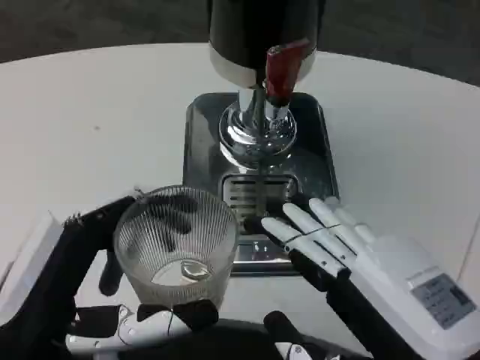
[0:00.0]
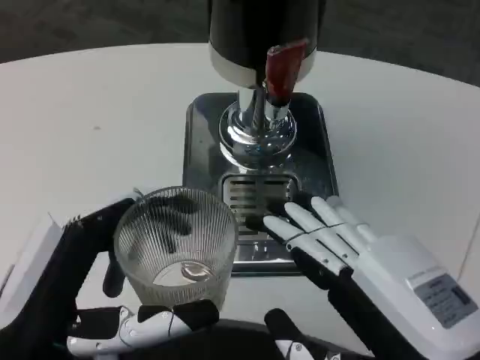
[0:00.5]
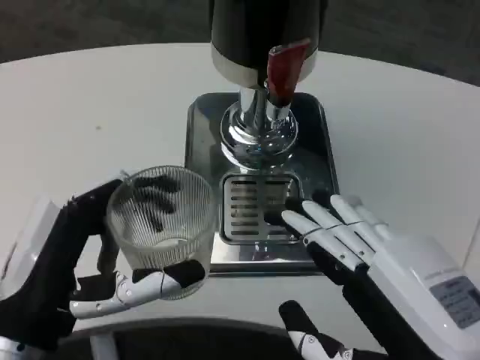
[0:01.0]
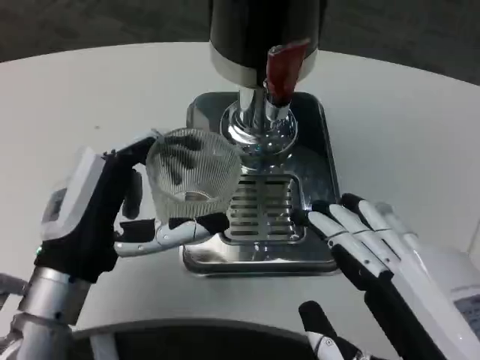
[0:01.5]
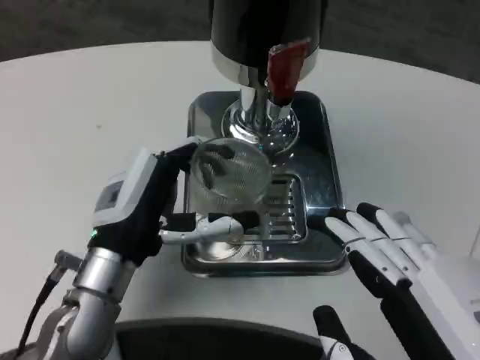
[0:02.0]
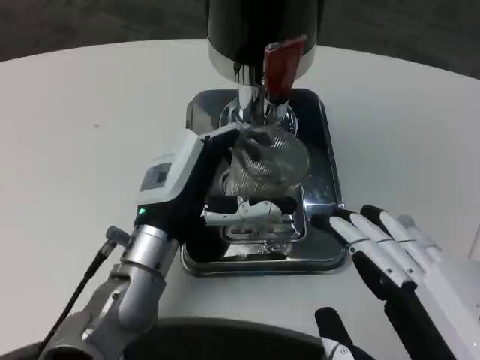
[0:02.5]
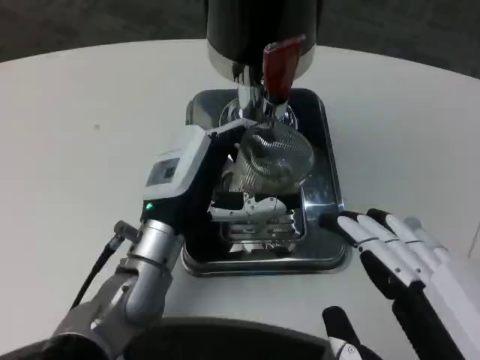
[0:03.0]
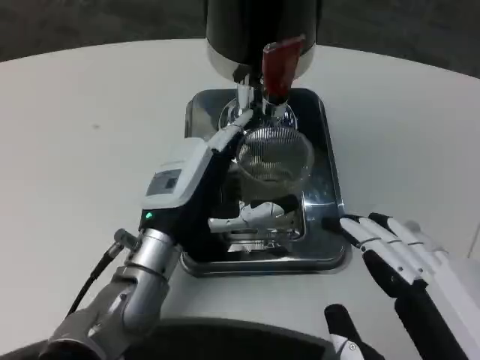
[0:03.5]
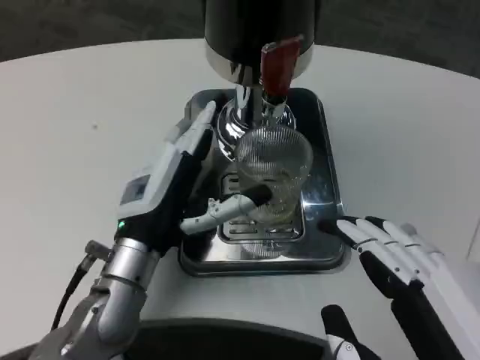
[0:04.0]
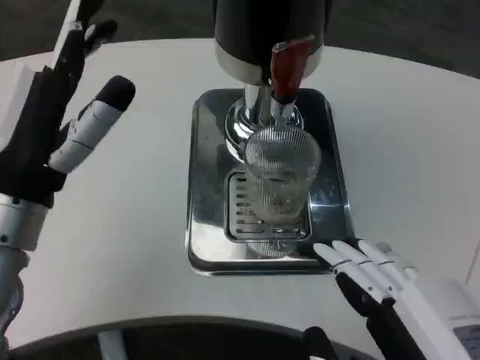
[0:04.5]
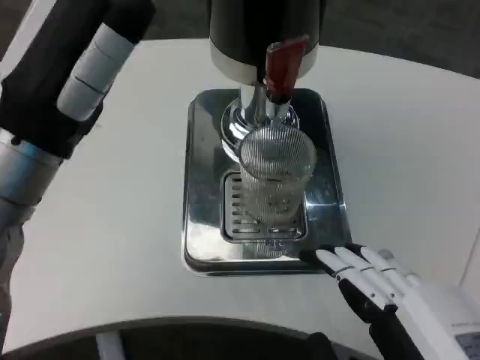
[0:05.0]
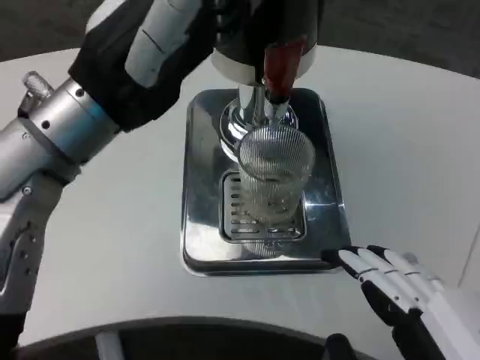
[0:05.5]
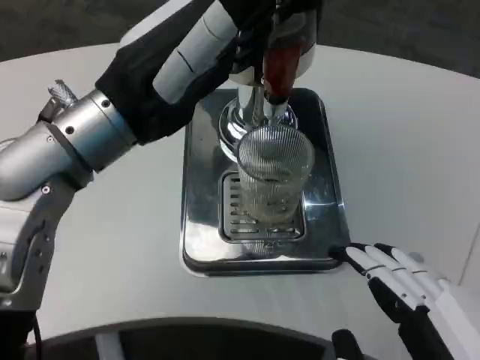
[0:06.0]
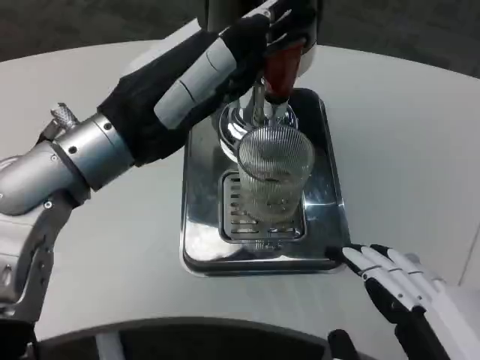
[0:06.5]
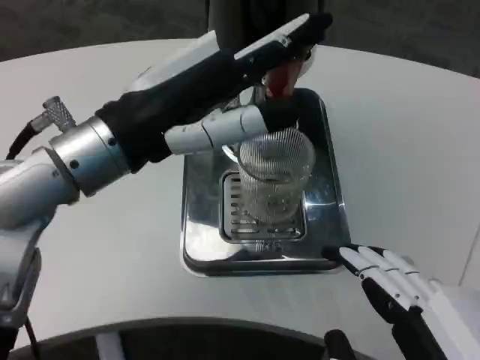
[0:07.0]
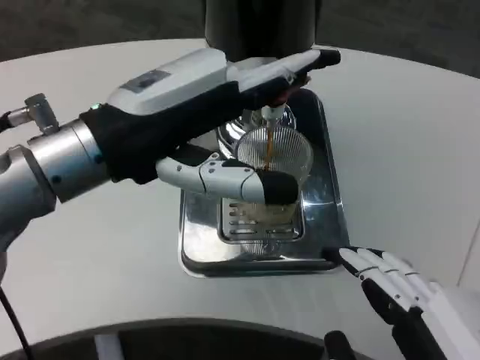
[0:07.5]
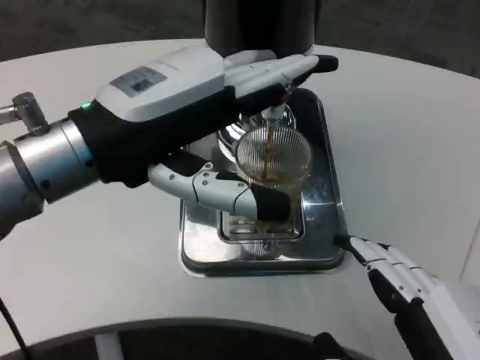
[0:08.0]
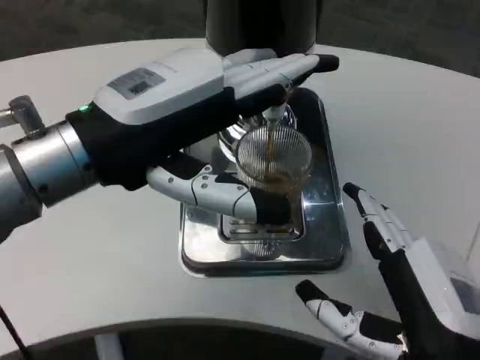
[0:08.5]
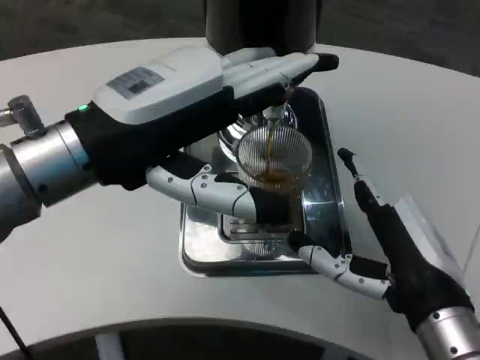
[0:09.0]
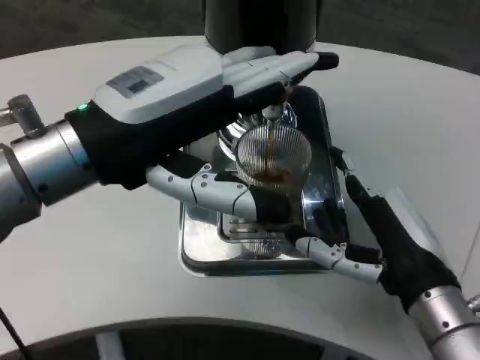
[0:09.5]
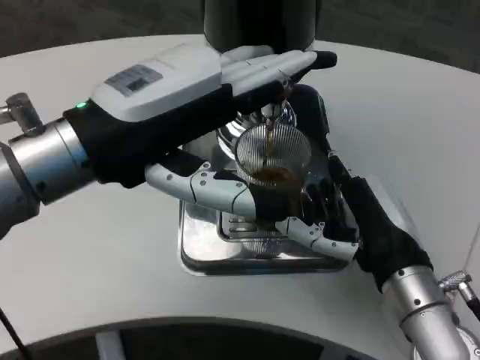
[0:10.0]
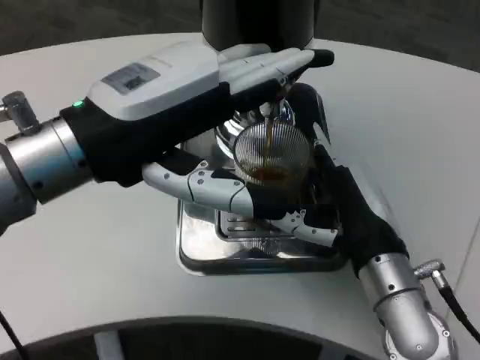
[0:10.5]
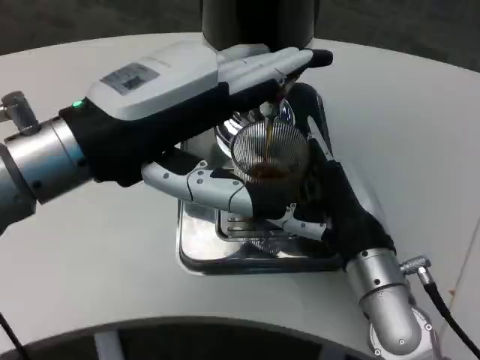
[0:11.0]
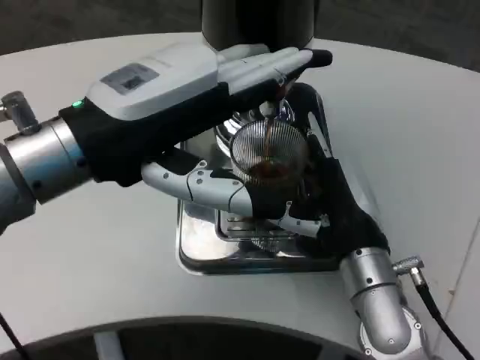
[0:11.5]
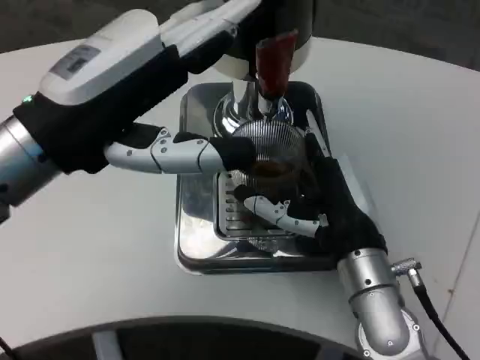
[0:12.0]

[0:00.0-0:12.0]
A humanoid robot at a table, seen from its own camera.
Task of the whole recording: Grasp the cup under the faucet to collect the drink, then remove the cup.
0:00.0 to 0:02.0: The left hand heads forward, covering about 15 cm.
0:04.0 to 0:06.0: The left hand shifts approximately 20 cm upward.
0:08.0 to 0:10.0: The right hand travels forward by approximately 15 cm.
0:10.0 to 0:12.0: The right hand shifts by roughly 5 cm.

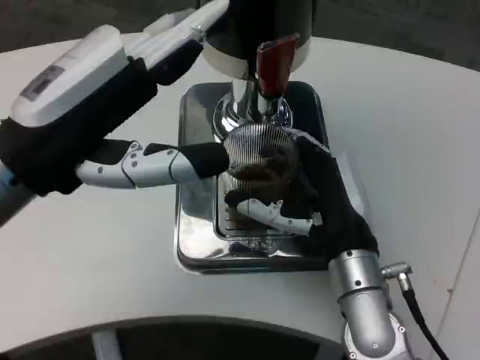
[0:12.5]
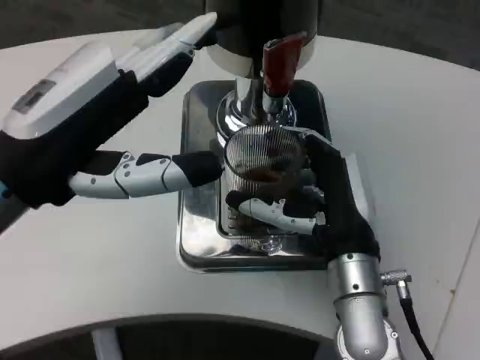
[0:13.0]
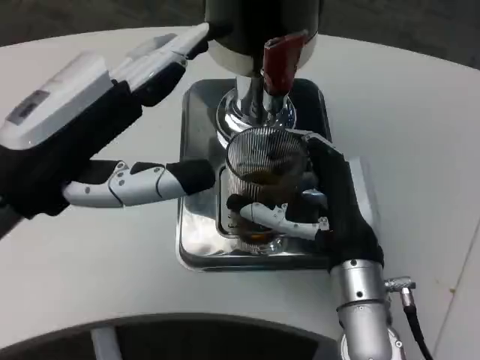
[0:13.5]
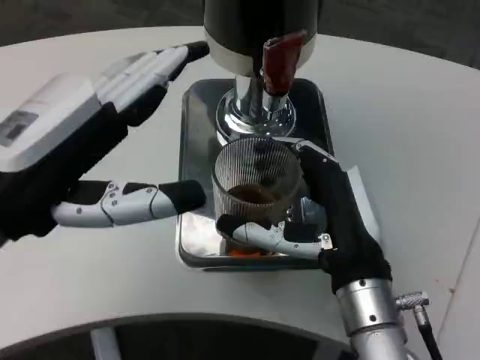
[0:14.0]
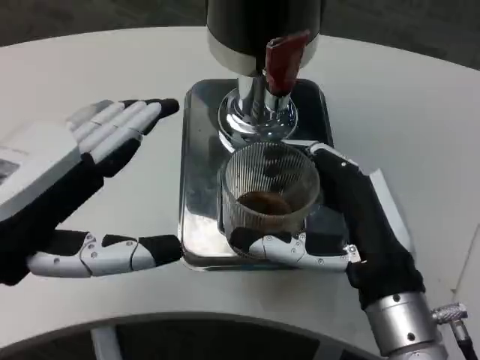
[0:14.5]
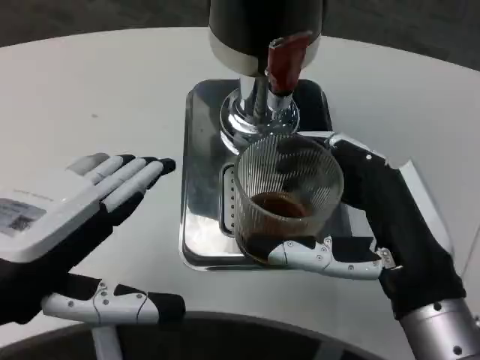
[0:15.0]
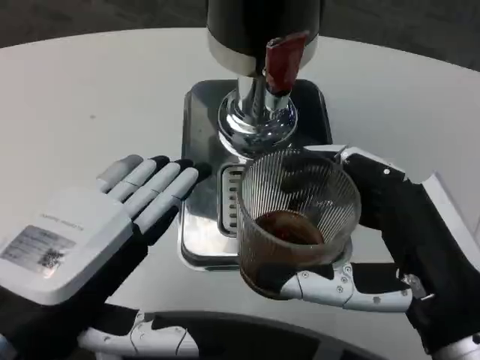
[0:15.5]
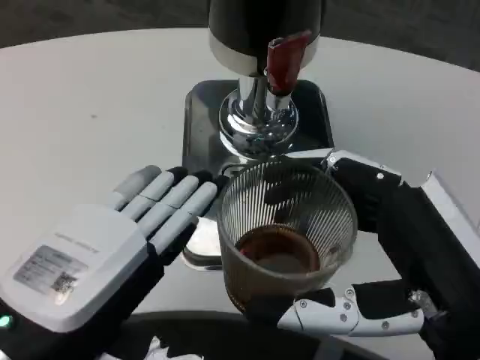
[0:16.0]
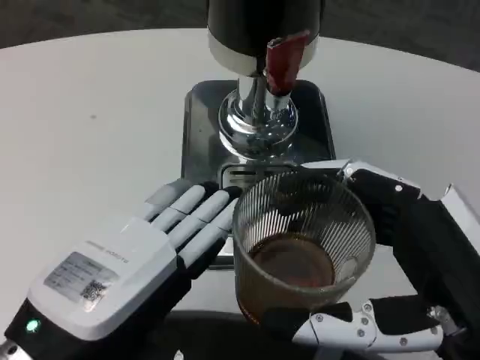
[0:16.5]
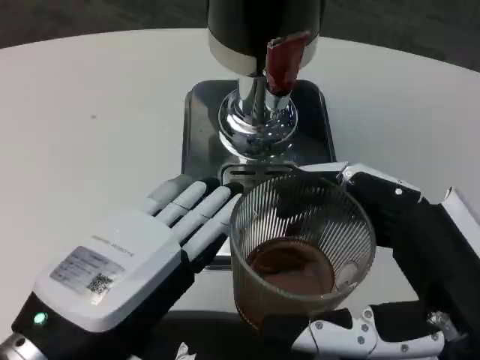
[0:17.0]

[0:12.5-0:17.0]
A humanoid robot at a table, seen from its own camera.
Task of the whole recording: Grasp the cup under the faucet to collect the drink, then remove the cup.
0:12.5 to 0:14.5: Both hands travel together backward, some 5 cm.
0:14.5 to 0:17.0: The left hand travels to the right by approximately 5 cm. Meanwhile the right hand is displaced backward by about 10 cm.

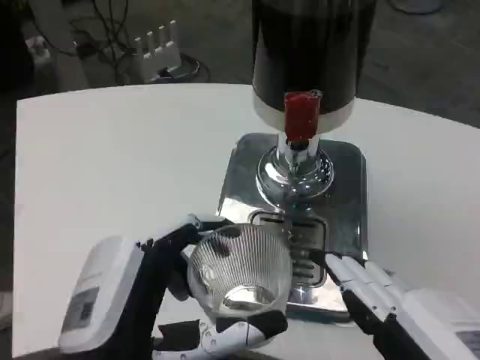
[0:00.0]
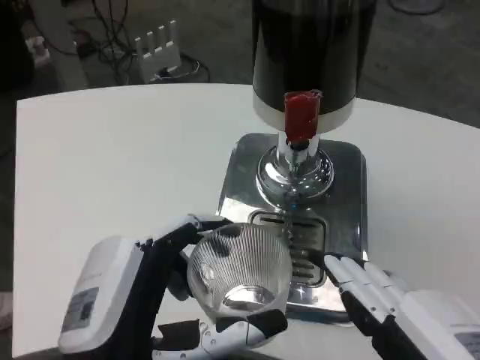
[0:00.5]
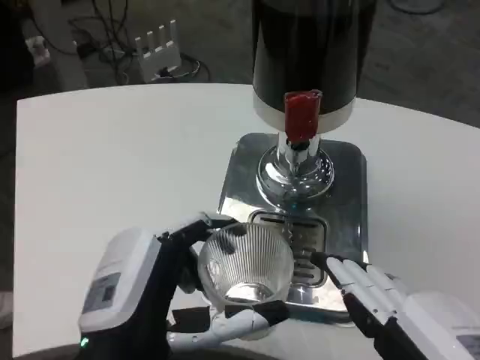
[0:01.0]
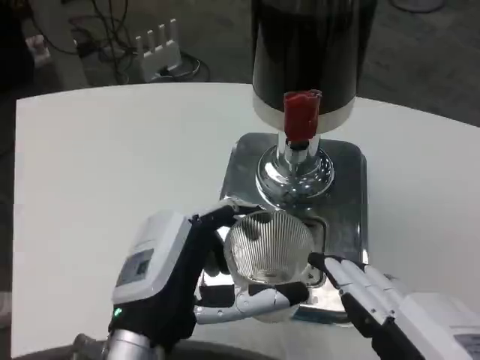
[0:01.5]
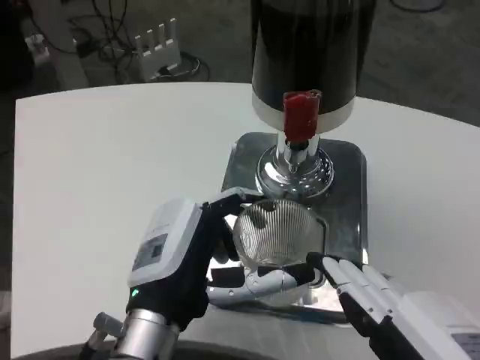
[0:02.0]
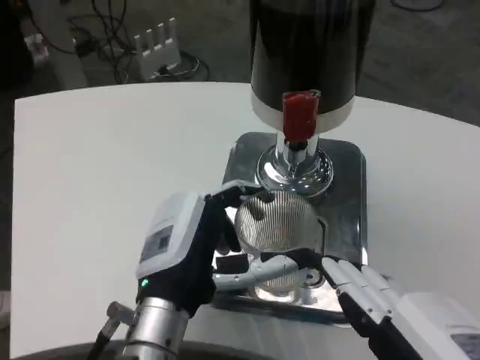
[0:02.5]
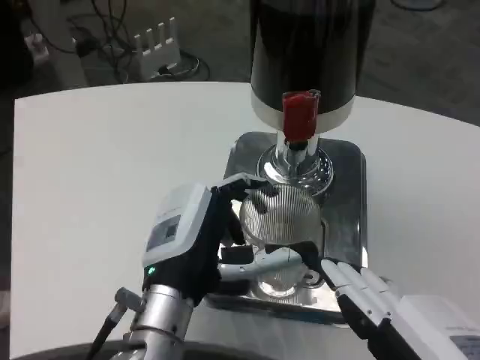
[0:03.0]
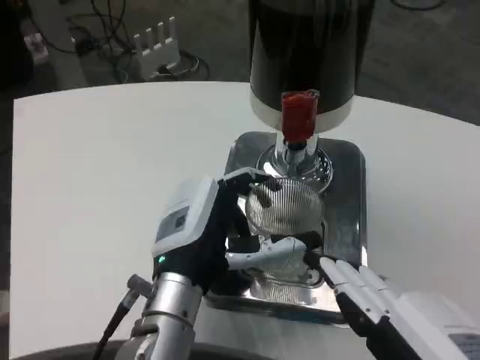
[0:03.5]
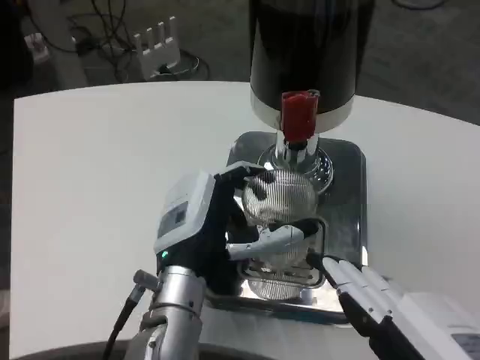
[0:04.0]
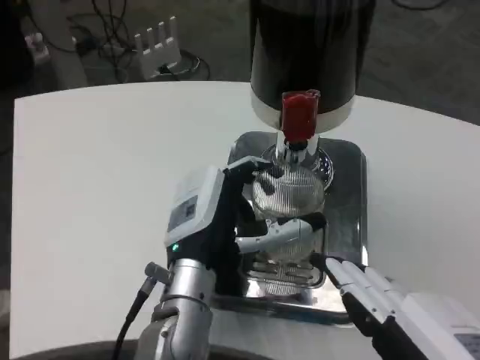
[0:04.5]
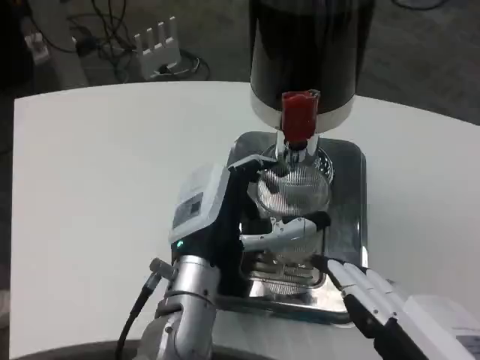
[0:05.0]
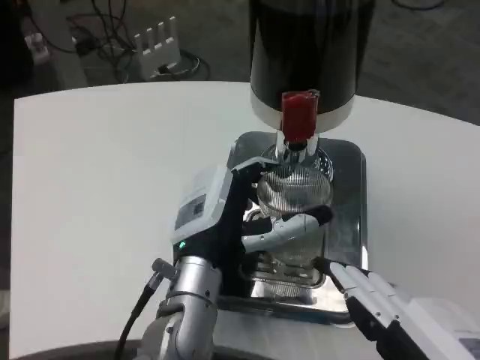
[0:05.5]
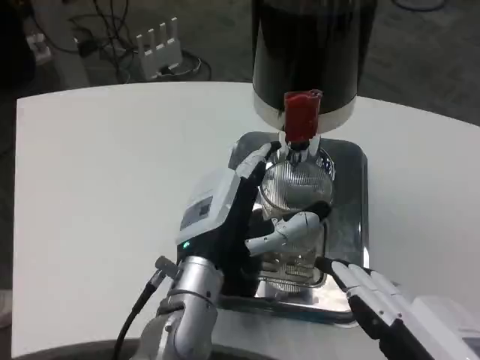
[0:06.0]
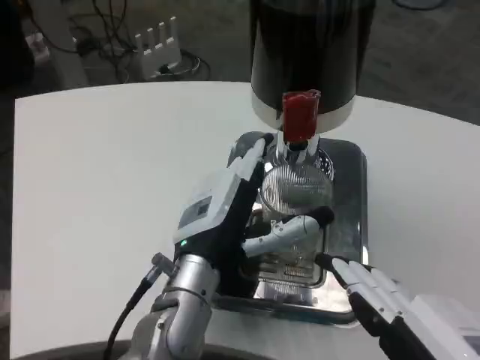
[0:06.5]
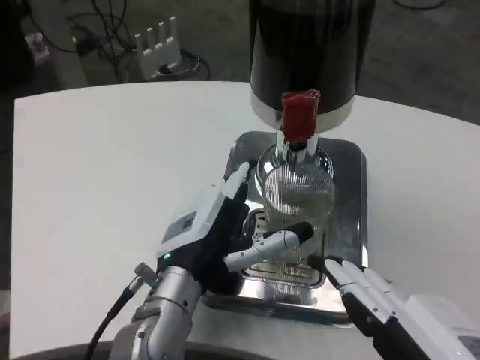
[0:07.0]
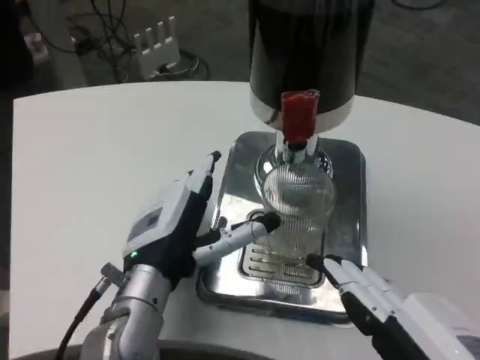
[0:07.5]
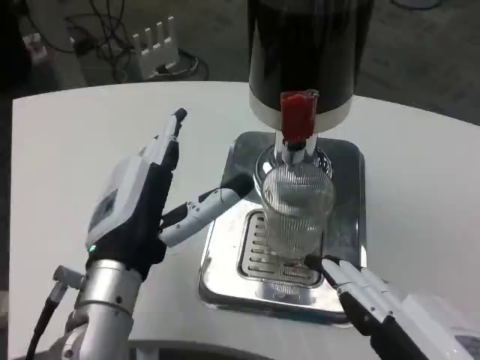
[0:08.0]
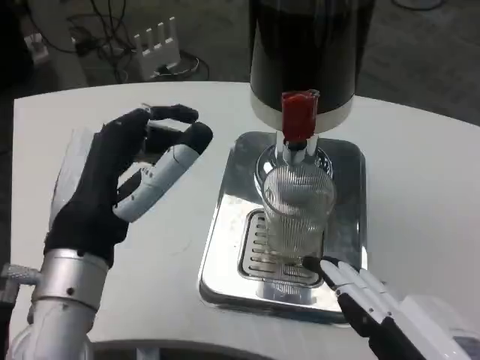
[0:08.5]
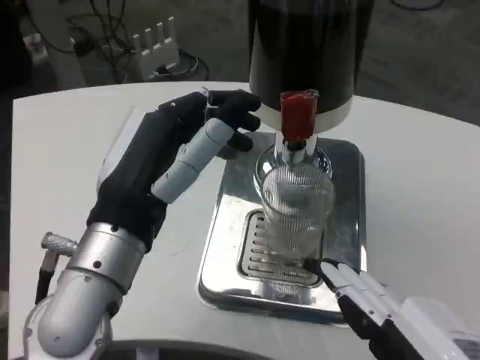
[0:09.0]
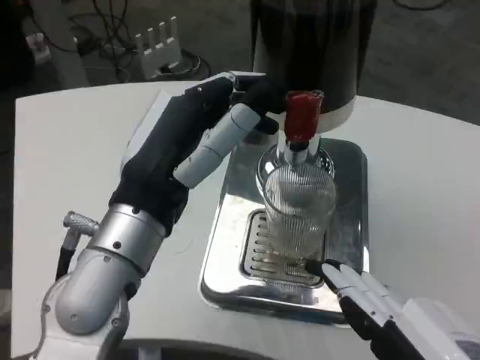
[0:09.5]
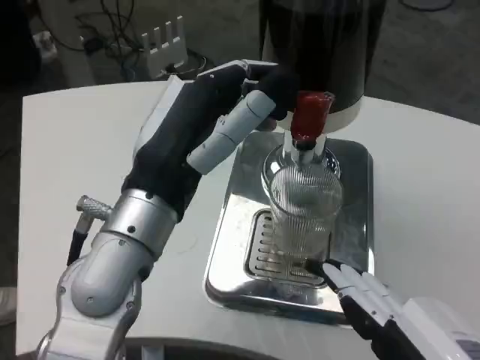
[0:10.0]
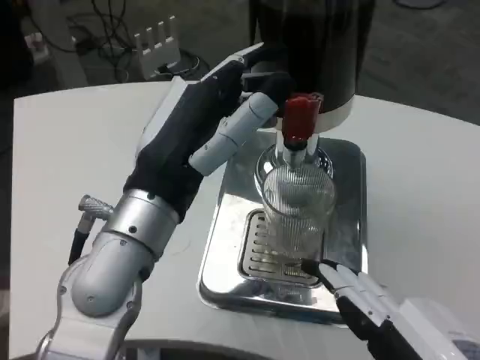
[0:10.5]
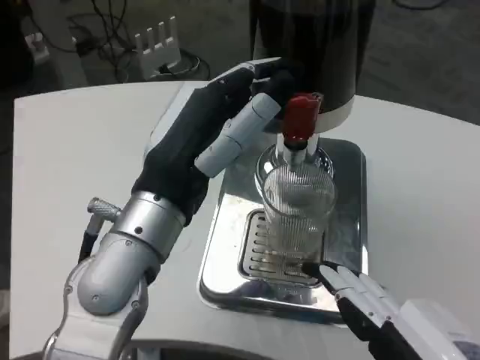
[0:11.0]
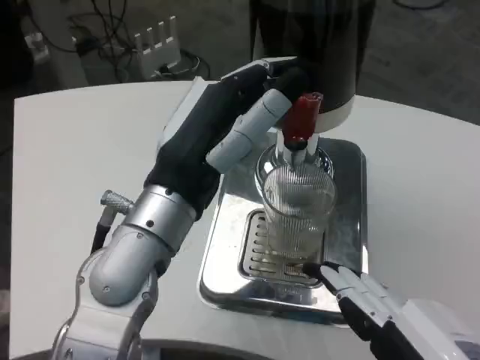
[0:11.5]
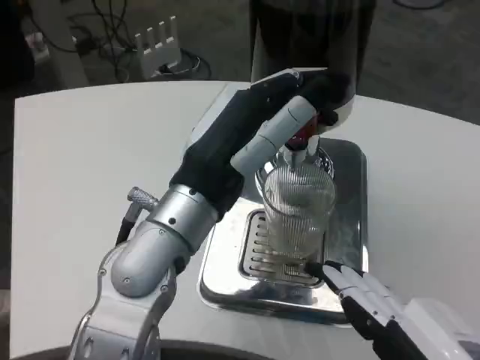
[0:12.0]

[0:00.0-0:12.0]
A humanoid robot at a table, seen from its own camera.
Task of the whole recording: Grasp the cup under the faucet to collect the drink, then remove the cup.
0:00.0 to 0:02.0: The left hand travels forward by some 10 cm.
0:02.0 to 0:04.0: The left hand heads forward, covering about 5 cm.
0:04.0 to 0:06.0: The hands make only small movements.
0:06.0 to 0:08.0: The left hand moves to the left, some 5 cm.
0:08.0 to 0:10.0: The left hand heads upward, covering approximately 5 cm.
